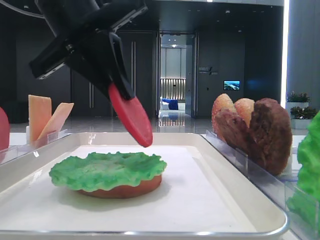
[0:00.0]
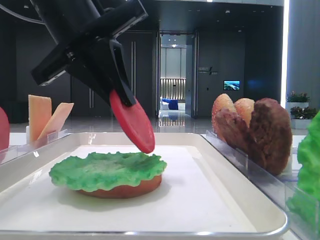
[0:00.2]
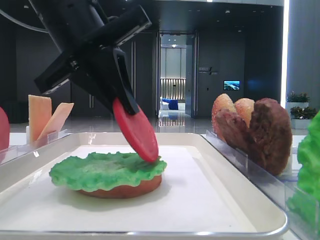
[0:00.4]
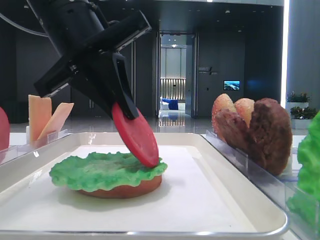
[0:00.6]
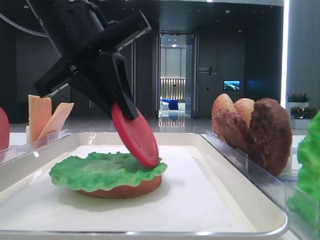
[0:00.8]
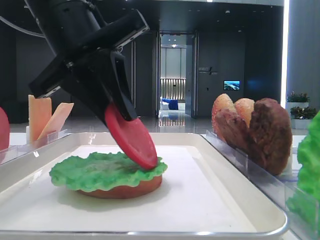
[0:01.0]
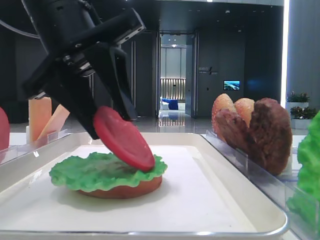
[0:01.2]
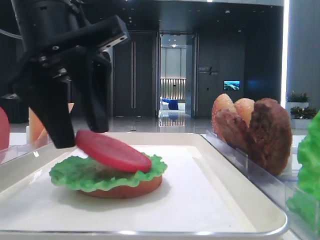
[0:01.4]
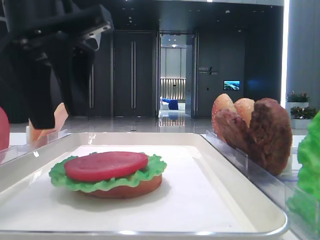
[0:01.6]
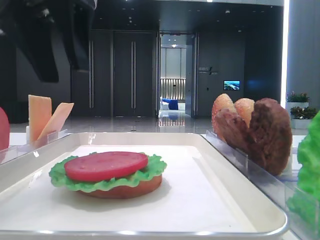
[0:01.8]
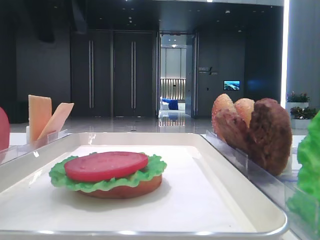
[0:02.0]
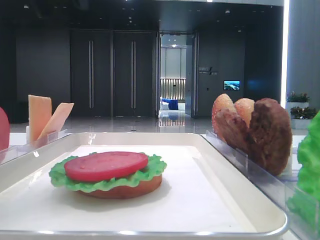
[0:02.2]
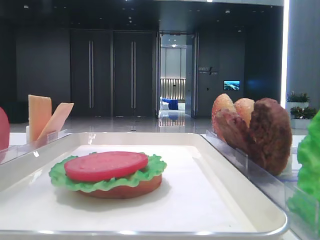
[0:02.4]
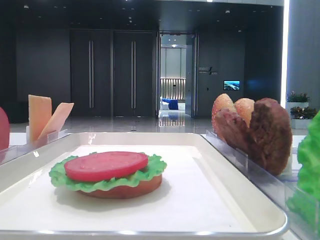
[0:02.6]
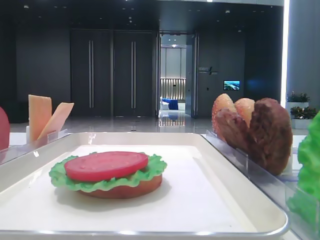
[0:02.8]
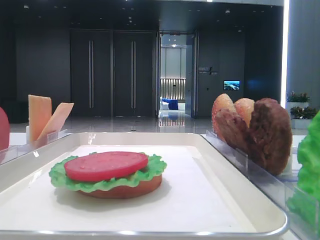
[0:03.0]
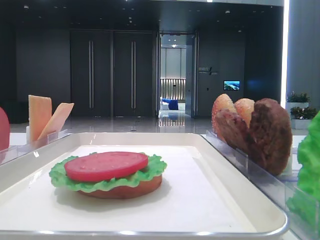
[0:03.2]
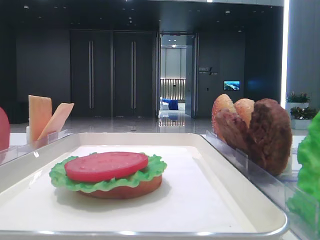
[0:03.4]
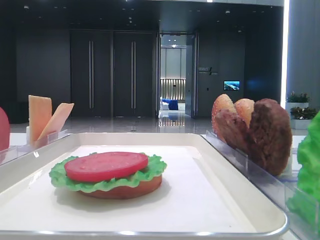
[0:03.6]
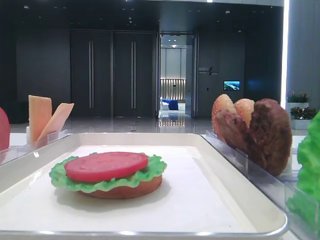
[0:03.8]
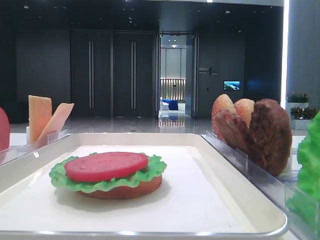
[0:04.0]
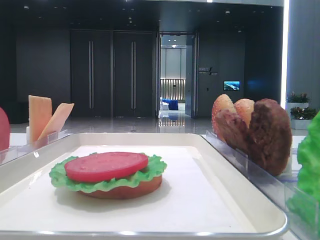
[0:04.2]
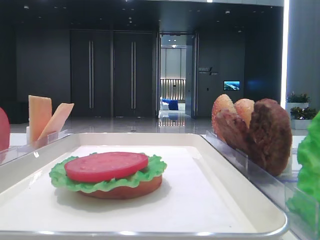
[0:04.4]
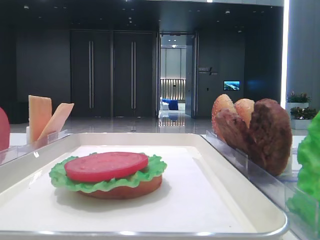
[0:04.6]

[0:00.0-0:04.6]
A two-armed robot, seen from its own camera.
0:00.0 to 0:01.6: The left gripper opens.
0:01.6 to 0:03.0: The left gripper shifts some 25 cm to the left and upward.

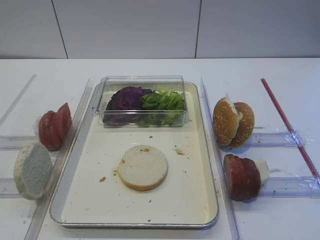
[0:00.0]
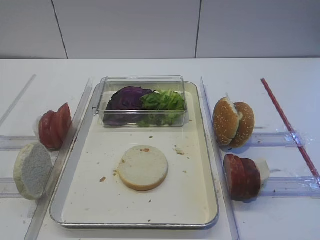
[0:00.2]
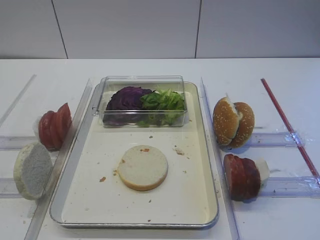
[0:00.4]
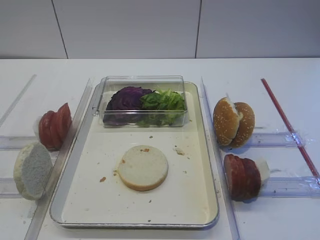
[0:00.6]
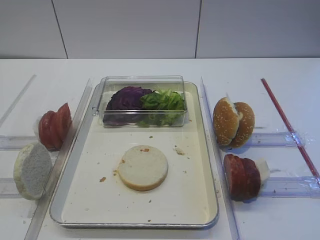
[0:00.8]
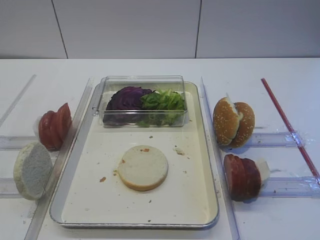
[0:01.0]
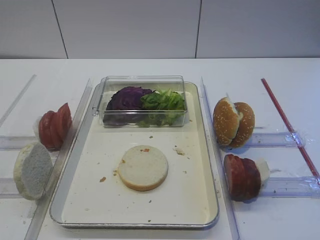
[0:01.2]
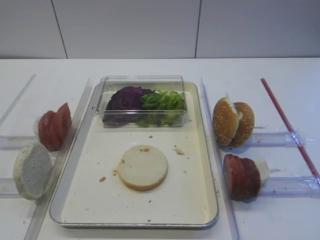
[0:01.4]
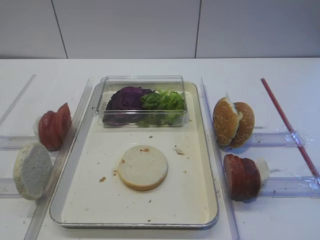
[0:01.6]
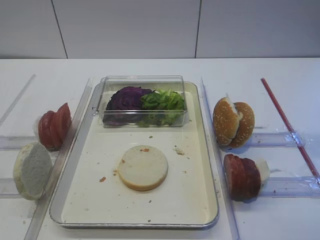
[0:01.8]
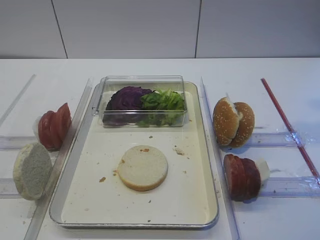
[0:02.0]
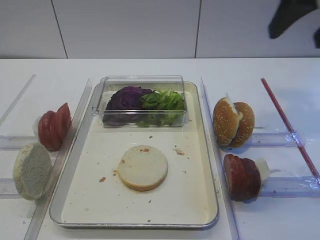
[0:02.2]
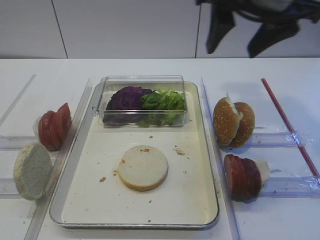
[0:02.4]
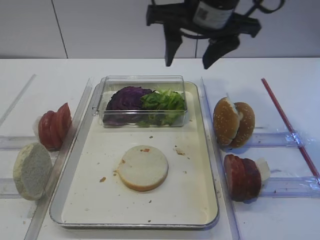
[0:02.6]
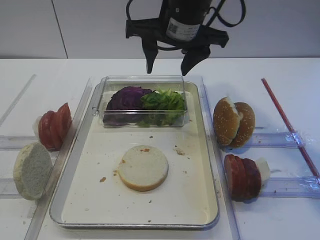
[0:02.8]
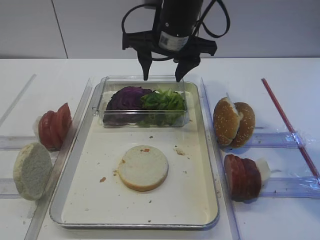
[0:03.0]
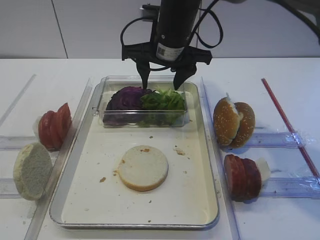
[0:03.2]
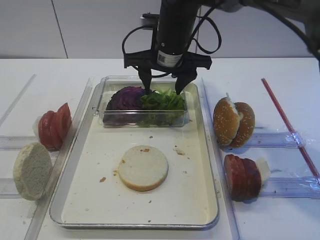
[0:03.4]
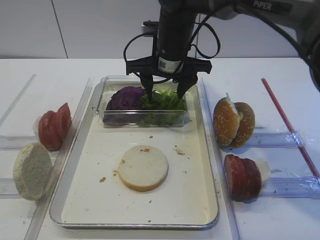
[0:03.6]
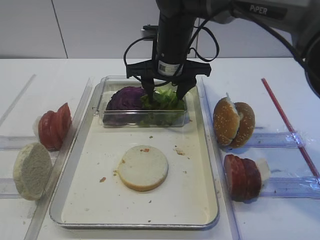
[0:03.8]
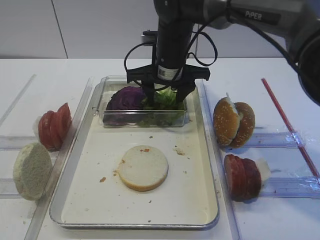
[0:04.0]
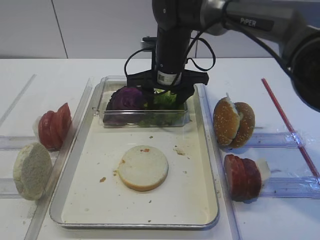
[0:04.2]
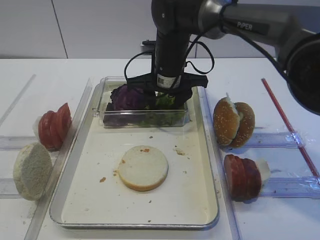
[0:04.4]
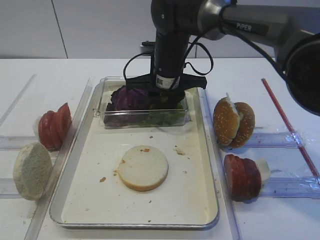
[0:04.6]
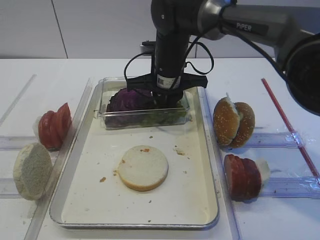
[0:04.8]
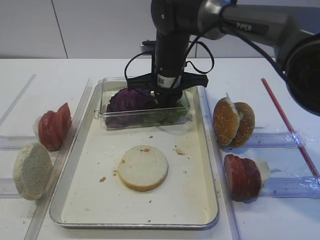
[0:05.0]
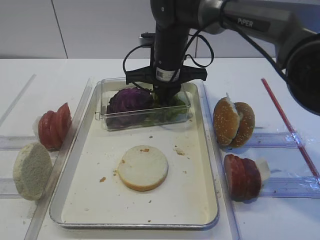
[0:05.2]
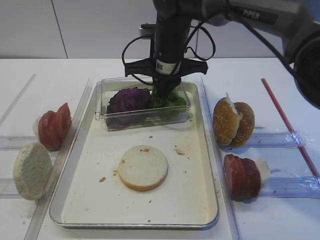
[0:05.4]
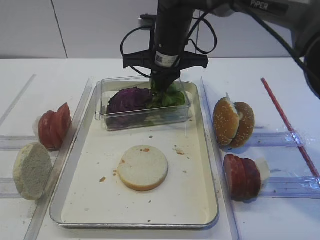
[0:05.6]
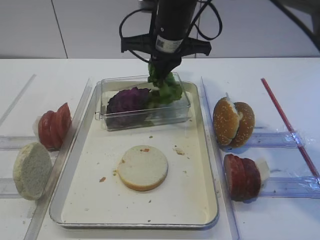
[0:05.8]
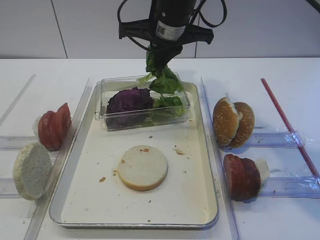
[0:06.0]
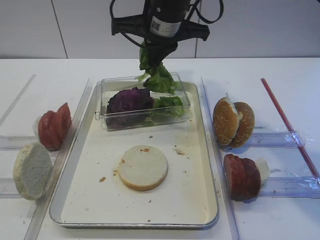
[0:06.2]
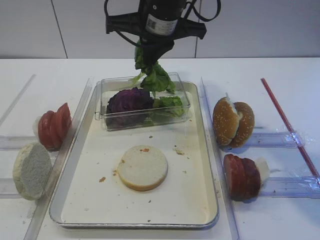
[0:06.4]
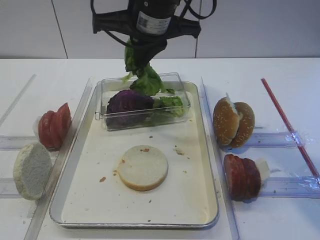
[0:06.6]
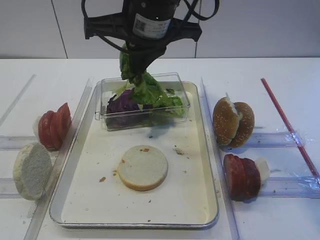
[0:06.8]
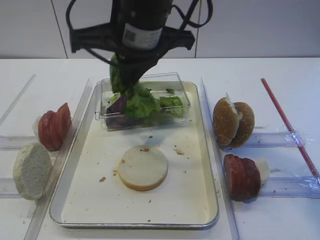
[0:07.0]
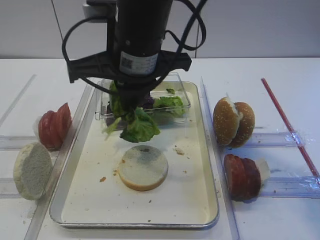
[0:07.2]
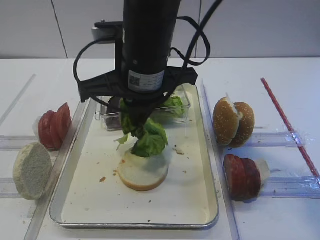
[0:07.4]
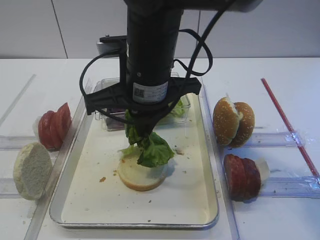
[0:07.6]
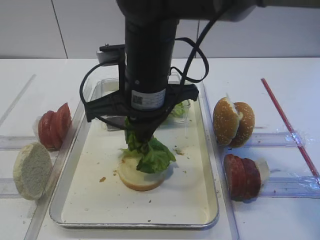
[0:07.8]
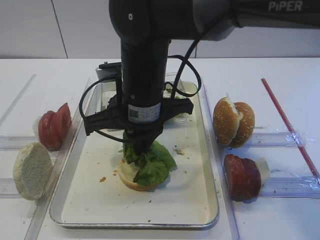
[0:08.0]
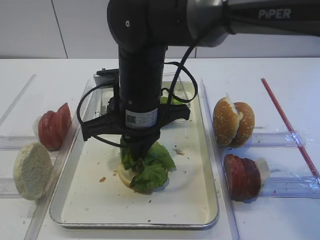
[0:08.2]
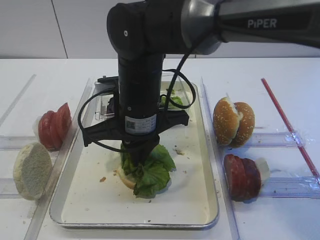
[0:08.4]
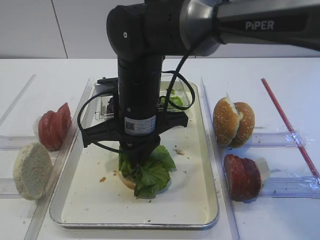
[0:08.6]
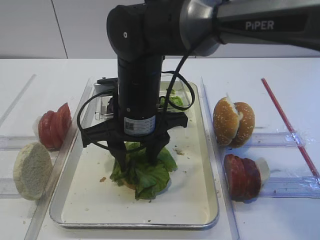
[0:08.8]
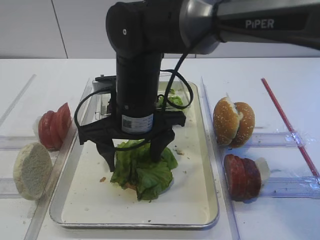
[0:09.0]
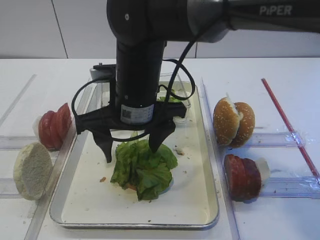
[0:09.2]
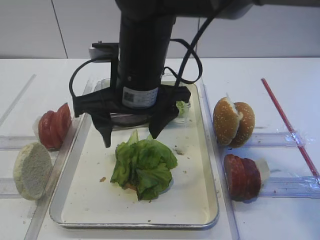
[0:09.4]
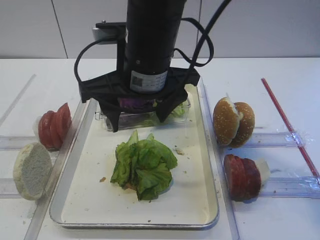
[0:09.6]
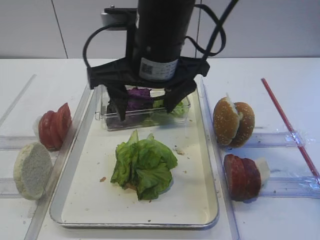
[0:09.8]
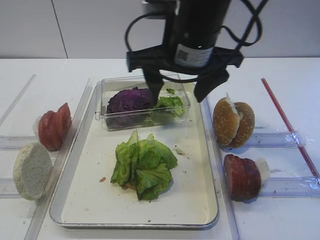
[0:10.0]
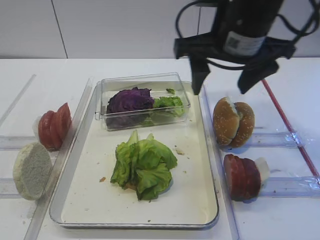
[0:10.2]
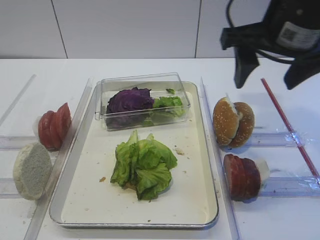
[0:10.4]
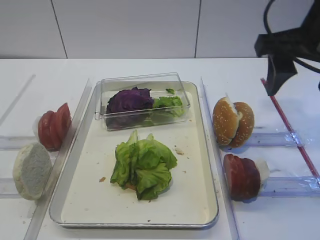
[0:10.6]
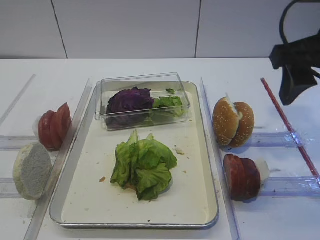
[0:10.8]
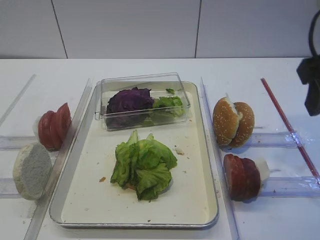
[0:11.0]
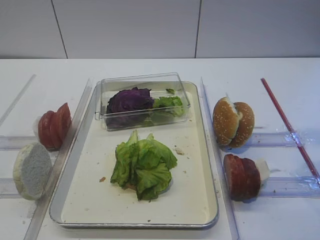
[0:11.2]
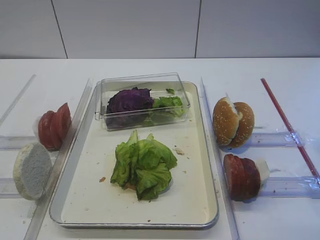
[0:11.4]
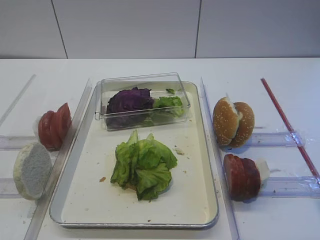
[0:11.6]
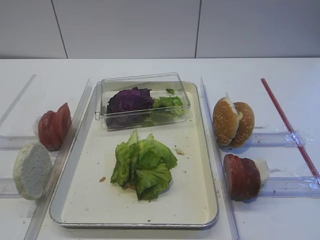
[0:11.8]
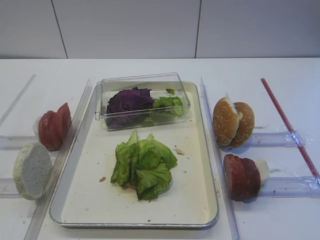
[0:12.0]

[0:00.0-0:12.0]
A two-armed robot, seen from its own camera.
Step, 0:00.0 to 0:05.8: Pick up the lettuce leaf with the right gripper.
Step, 0:06.0 to 0:09.2: Place the lettuce leaf on the bread slice with the right gripper.
0:01.6 to 0:03.0: The right gripper shifts roughly 35 cm forward and to the left.
0:03.0 to 0:04.4: The right gripper shifts approximately 10 cm downward.
0:04.4 to 0:06.0: The right gripper goes roughly 10 cm upward, and closes its fingers.
0:06.0 to 0:07.6: The right gripper heads backward, covering about 10 cm.
0:07.6 to 0:09.0: The right gripper shifts some 5 cm downward, and opens up.
0:09.0 to 0:10.4: The right gripper goes about 20 cm to the right and upward.
0:10.4 to 0:12.0: The right gripper goes roughly 20 cm backward and to the right.

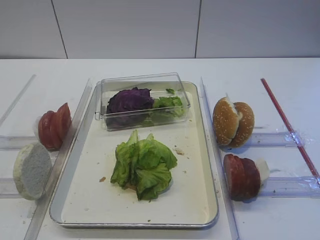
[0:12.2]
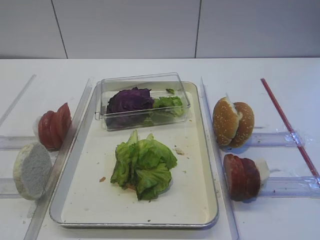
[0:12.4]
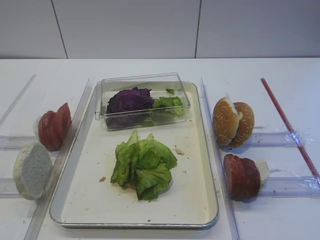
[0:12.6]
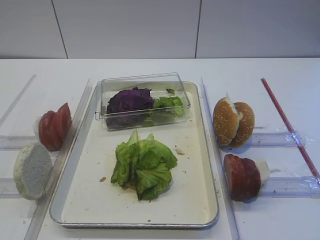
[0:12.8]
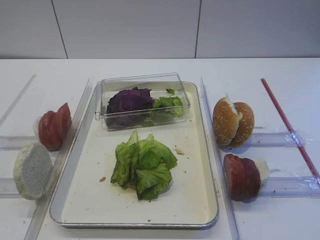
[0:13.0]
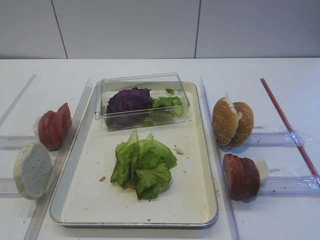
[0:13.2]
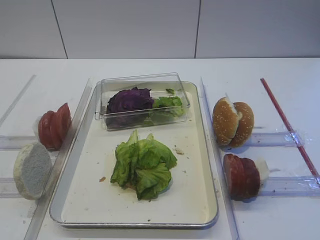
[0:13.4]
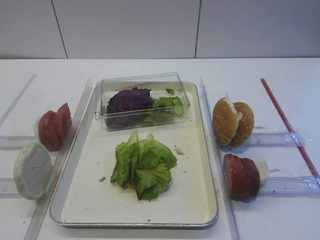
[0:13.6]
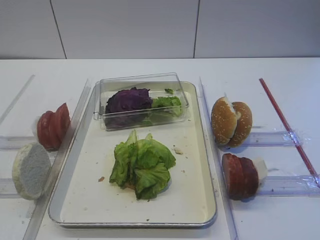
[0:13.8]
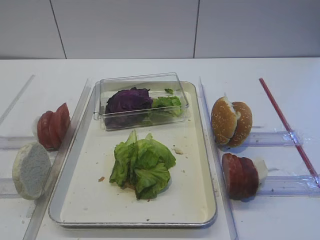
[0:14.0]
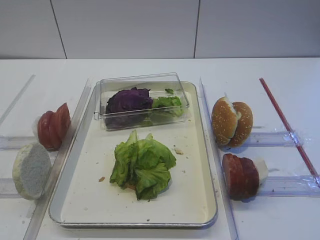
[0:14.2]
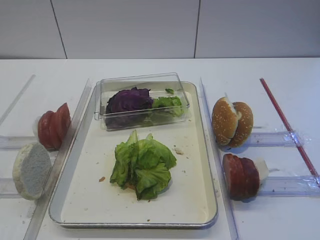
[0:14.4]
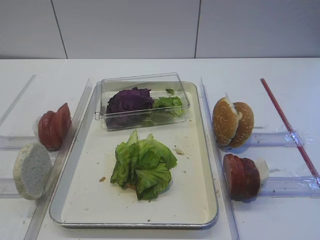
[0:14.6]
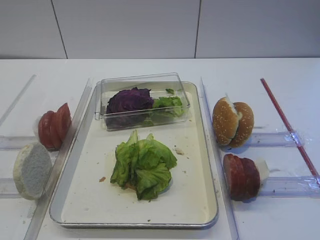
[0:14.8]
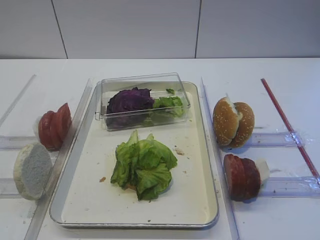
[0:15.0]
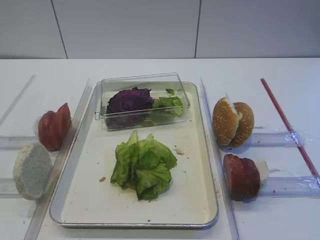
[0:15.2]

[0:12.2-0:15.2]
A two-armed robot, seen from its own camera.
0:12.2 to 0:13.8: The right gripper heads backward, covering roughly 10 cm.
0:13.8 to 0:15.2: The grippers make only small movements.

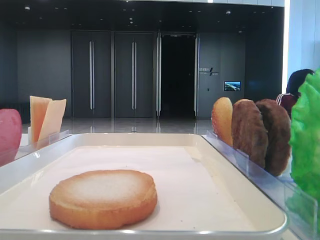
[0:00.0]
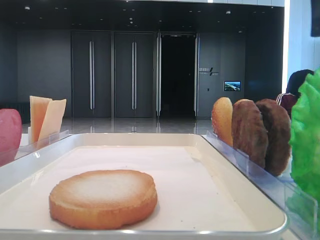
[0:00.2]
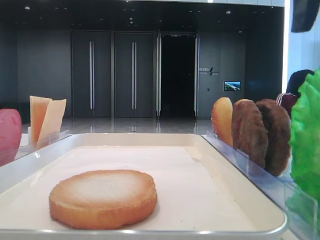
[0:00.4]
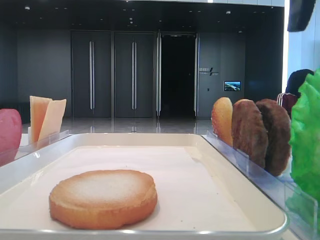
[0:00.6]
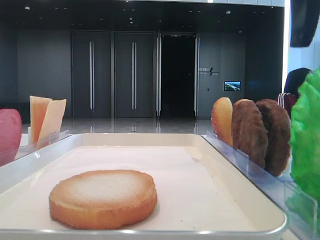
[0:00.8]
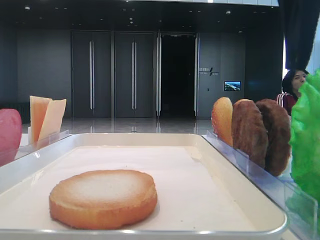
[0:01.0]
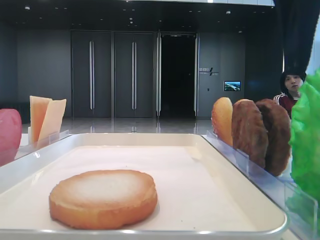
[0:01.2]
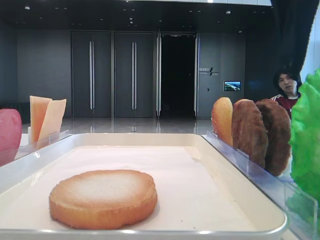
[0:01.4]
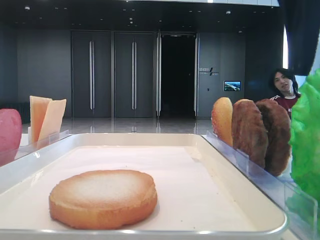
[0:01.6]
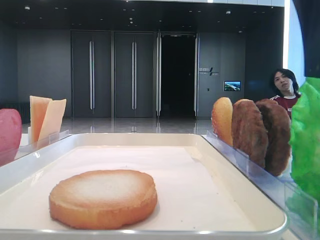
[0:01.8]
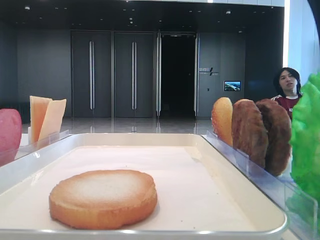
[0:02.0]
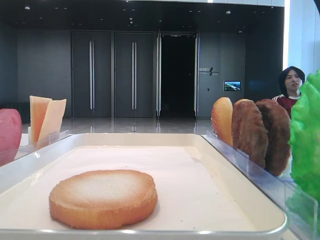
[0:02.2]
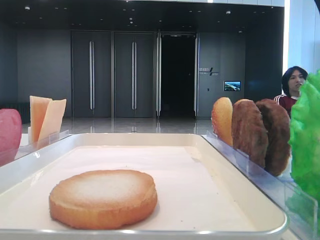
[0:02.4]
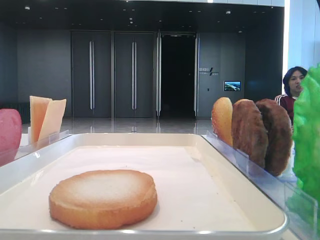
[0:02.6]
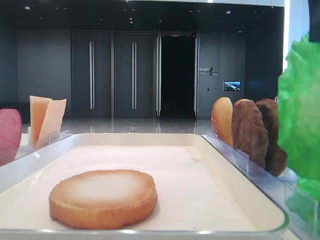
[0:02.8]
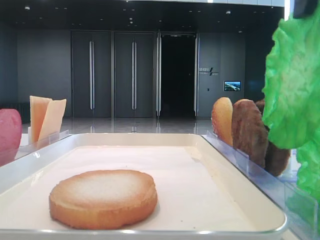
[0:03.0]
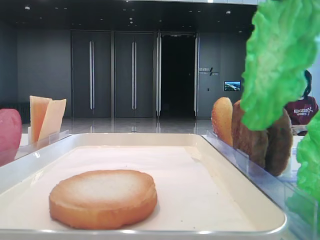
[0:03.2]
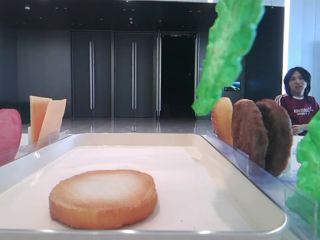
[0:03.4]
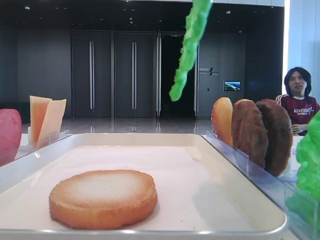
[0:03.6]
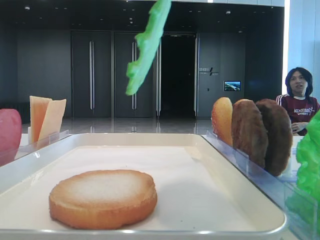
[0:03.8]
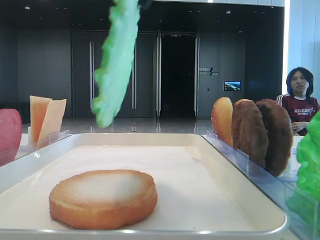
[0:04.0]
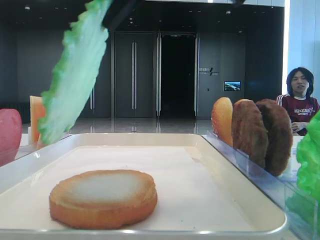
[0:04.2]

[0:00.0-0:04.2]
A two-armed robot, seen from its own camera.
Step, 0:00.0 to 0:02.2: Grab the lettuce leaf with the right hand.
0:00.0 to 0:01.4: The grippers stay close to where they were, moving slightly.
0:01.4 to 0:02.8: The right gripper closes its fingers.
0:02.8 to 0:04.2: The right gripper travels to the left by roughly 10 cm.
